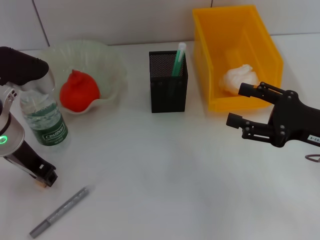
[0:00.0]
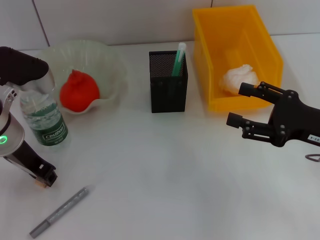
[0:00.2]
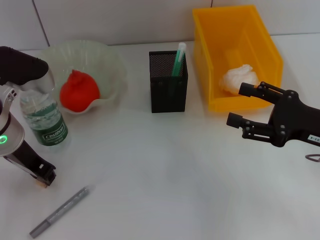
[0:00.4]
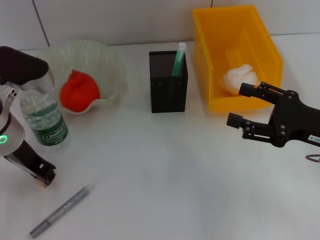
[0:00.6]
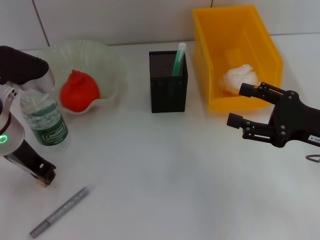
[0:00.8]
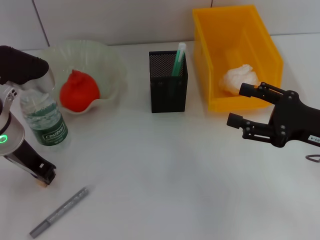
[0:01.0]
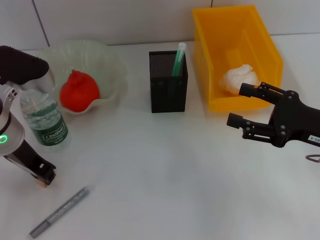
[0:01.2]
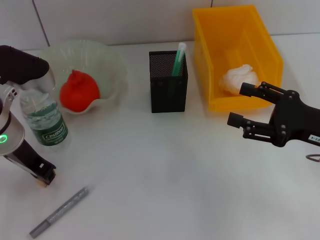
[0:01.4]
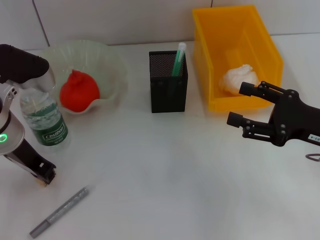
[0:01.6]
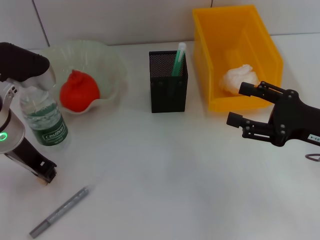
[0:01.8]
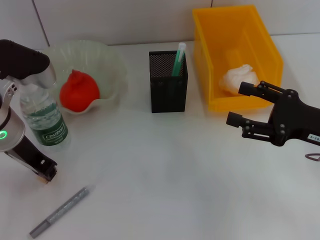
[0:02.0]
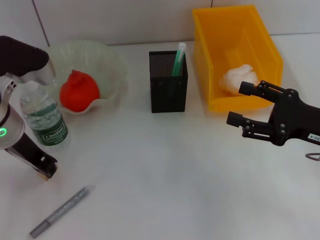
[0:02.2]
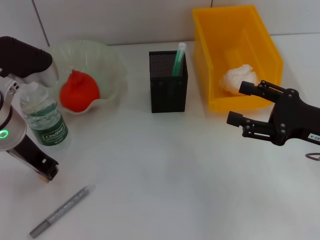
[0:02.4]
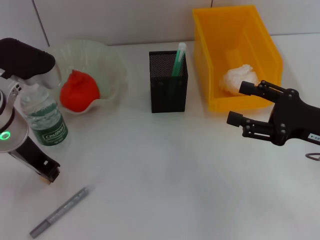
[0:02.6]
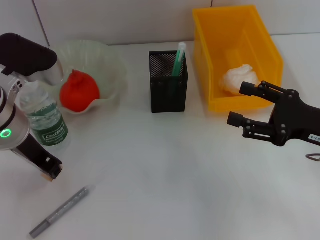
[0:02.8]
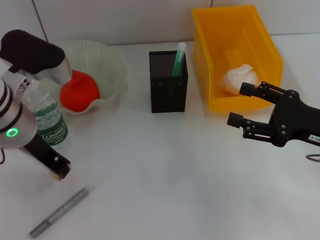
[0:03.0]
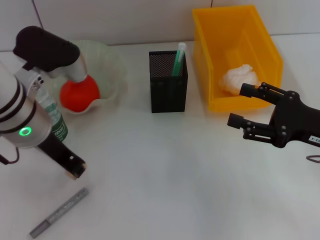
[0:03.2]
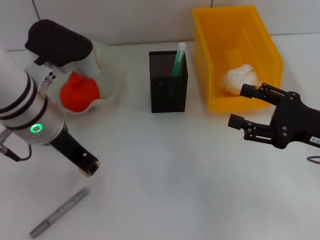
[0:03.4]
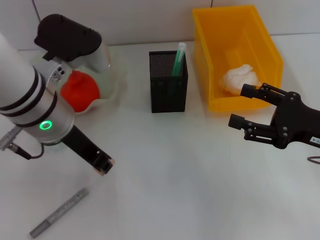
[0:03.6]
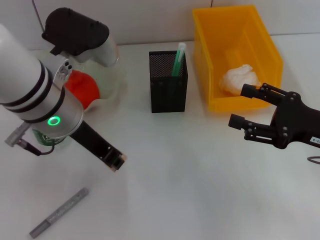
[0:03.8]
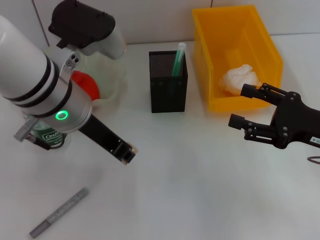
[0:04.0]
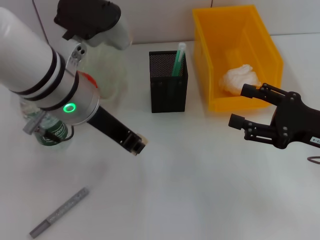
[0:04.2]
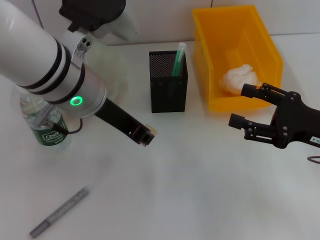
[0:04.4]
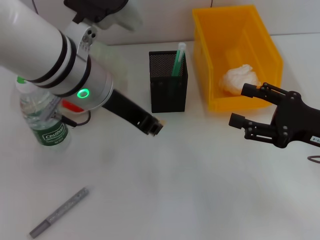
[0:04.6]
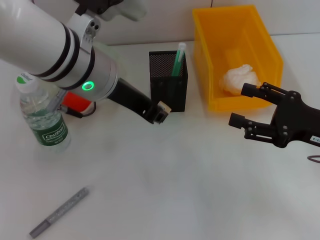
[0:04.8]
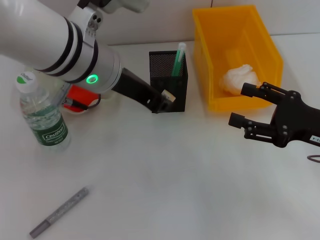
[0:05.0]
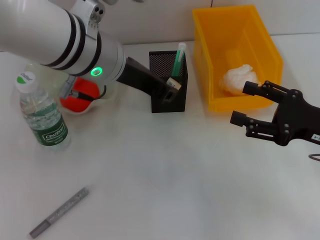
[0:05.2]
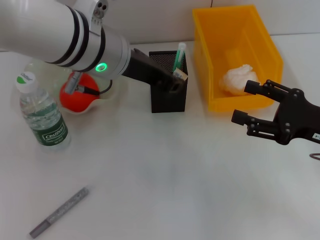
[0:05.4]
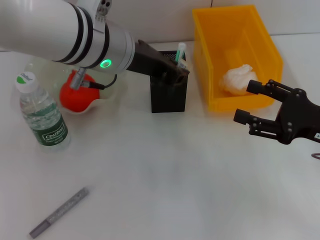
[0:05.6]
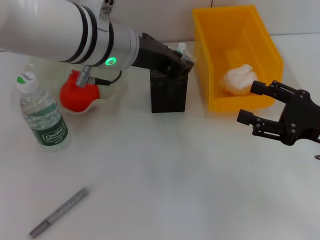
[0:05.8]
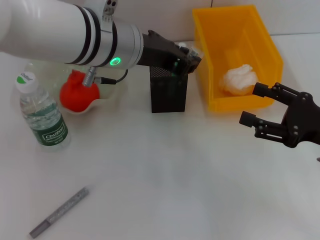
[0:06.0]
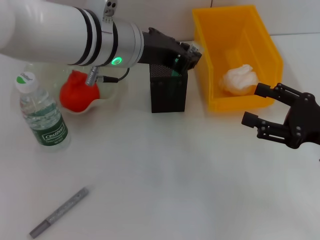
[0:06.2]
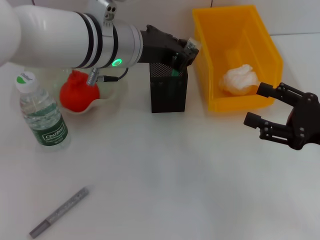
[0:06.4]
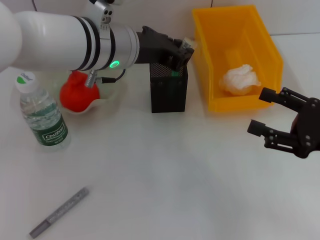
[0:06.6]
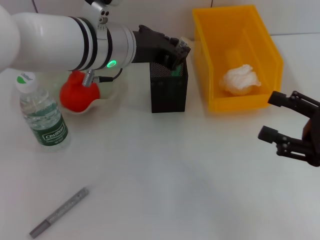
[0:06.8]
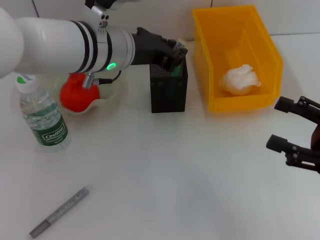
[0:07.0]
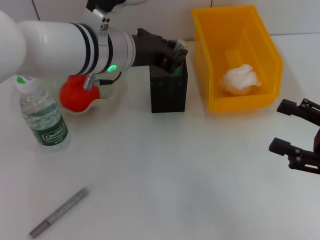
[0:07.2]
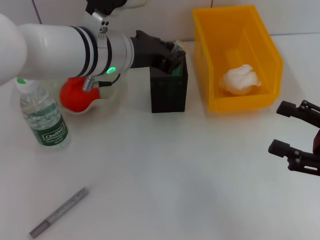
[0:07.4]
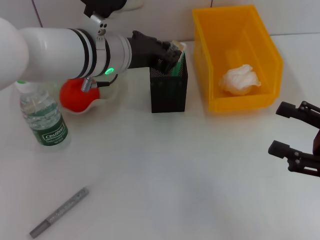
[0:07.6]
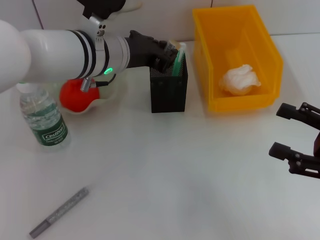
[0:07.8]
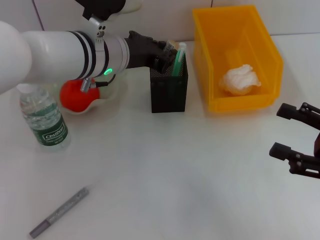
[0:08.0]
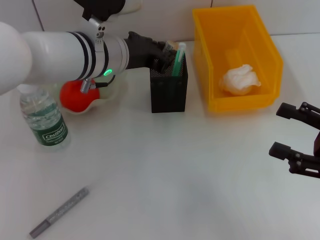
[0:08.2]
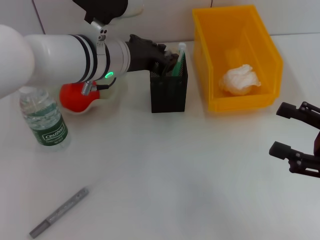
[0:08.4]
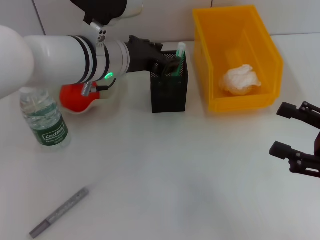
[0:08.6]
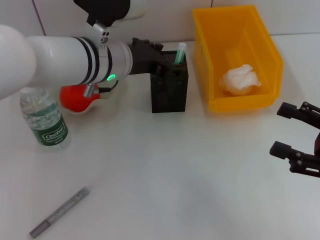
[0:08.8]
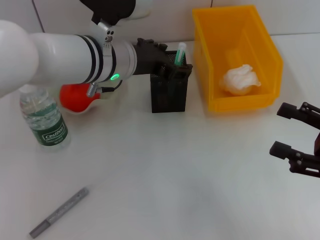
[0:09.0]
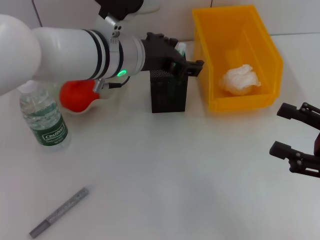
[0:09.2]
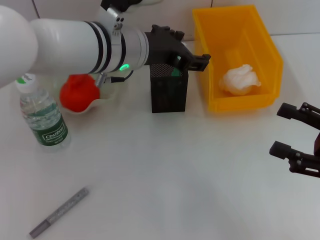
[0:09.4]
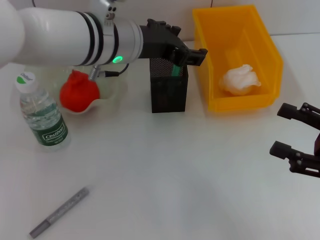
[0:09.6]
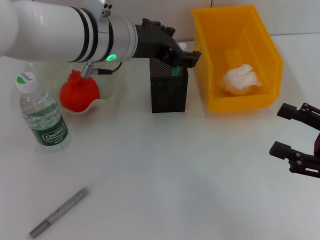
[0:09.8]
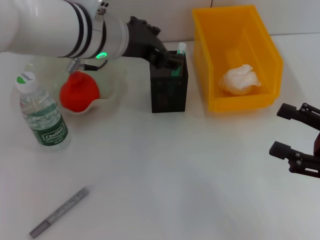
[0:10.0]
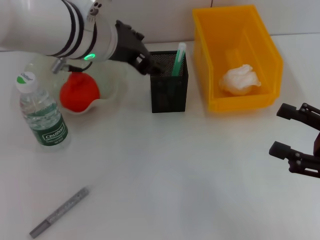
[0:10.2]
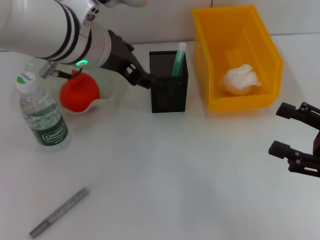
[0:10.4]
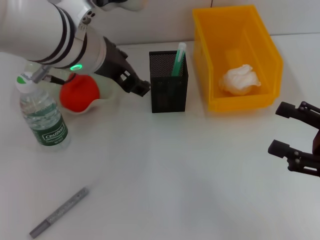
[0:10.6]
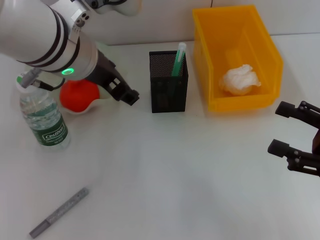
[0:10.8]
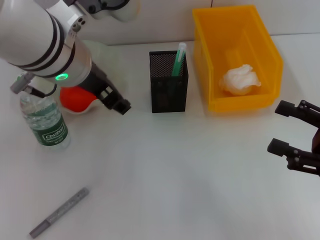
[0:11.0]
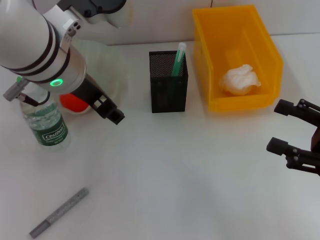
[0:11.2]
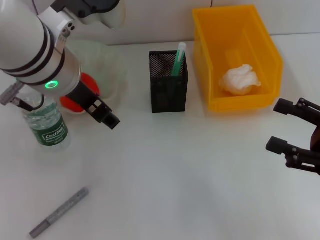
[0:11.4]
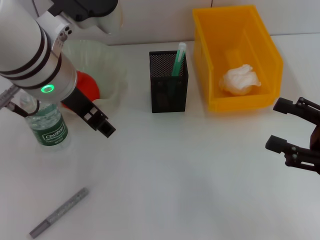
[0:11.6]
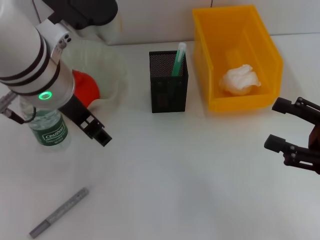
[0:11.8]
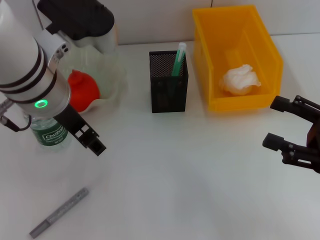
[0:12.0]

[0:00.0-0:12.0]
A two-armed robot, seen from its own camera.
Step, 0:01.2 to 0:08.4: Place the eraser into the pen holder with the left hand.
0:00.0 to 0:01.6: Both grippers stay put.
0:01.6 to 0:03.0: The grippers make only small movements.
0:03.0 to 0:04.4: The left gripper moves to the right, about 10 cm.
0:06.0 to 0:07.6: The right gripper shifts by roughly 5 cm, while the left gripper shifts by approximately 5 cm.
0:07.6 to 0:09.0: The left gripper opens its fingers.
0:09.0 to 0:10.4: The left gripper moves upward, about 5 cm.

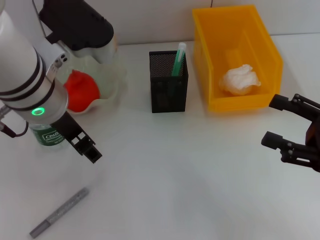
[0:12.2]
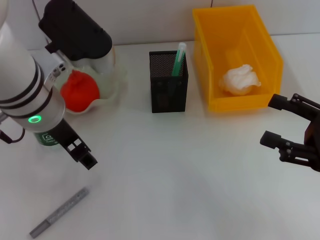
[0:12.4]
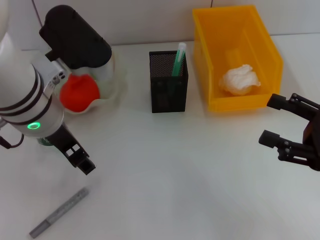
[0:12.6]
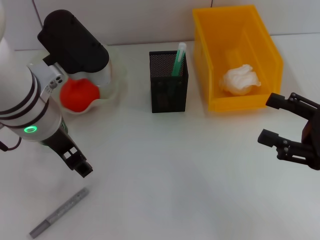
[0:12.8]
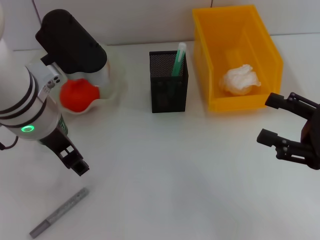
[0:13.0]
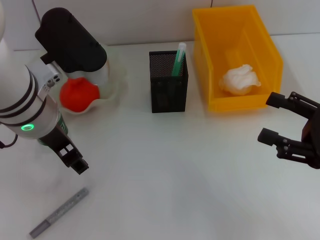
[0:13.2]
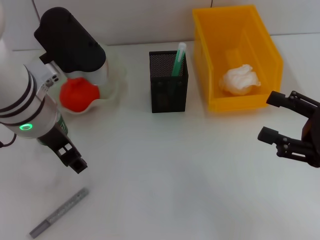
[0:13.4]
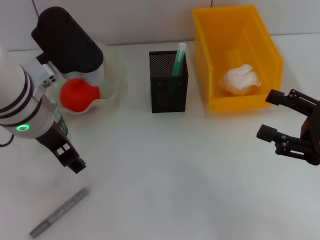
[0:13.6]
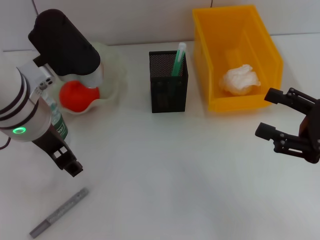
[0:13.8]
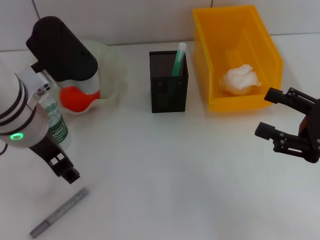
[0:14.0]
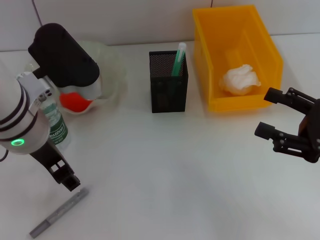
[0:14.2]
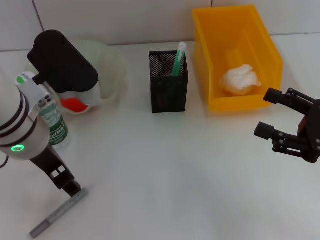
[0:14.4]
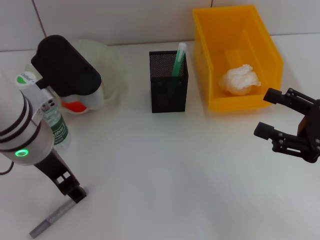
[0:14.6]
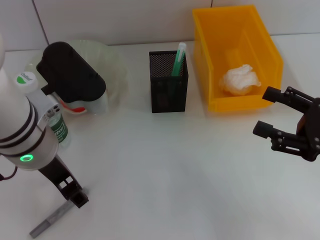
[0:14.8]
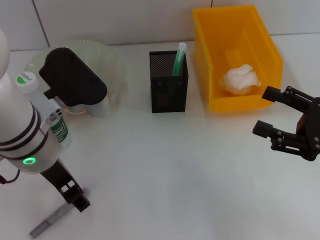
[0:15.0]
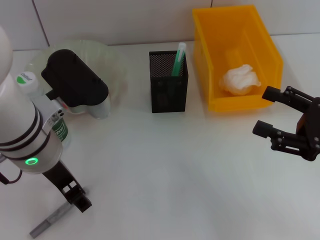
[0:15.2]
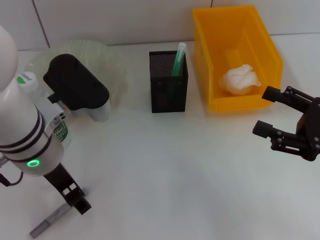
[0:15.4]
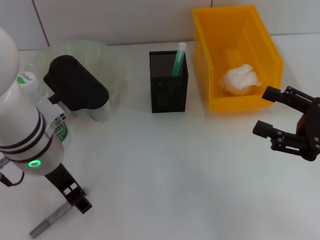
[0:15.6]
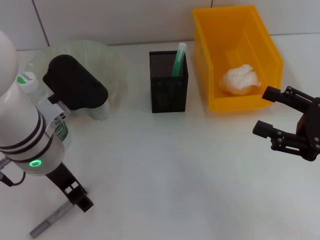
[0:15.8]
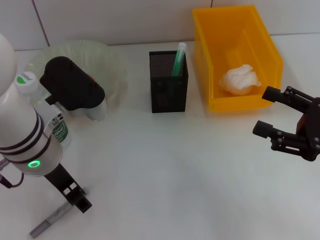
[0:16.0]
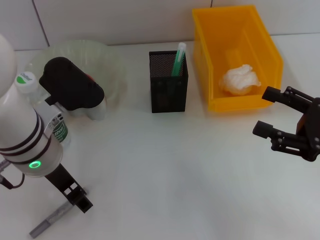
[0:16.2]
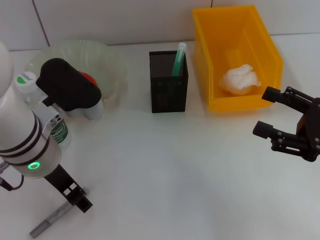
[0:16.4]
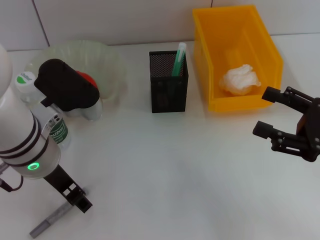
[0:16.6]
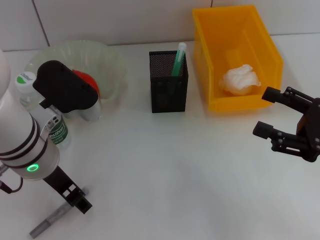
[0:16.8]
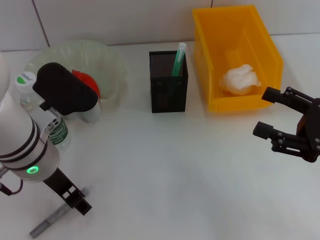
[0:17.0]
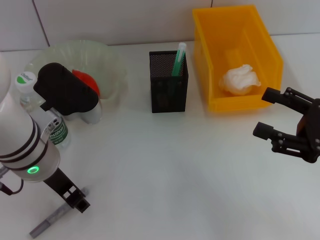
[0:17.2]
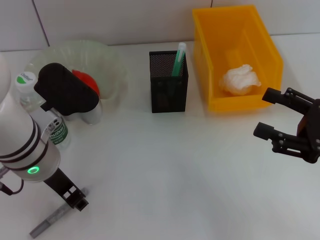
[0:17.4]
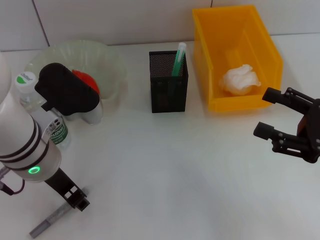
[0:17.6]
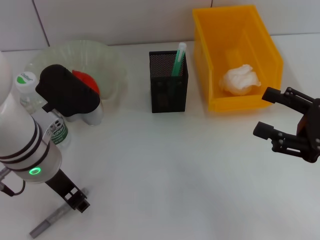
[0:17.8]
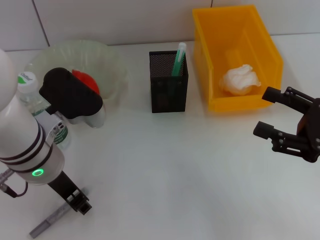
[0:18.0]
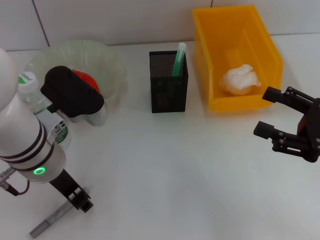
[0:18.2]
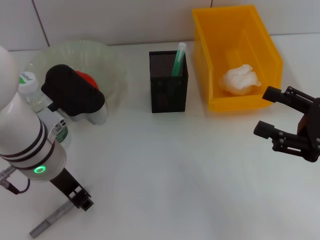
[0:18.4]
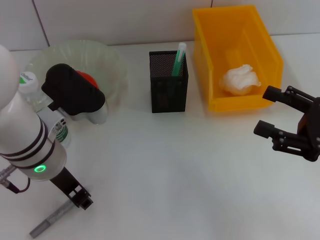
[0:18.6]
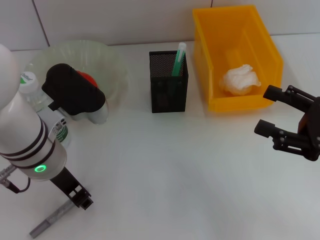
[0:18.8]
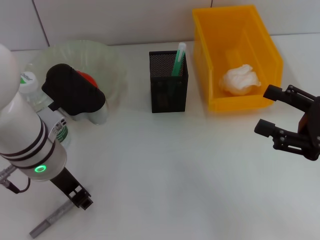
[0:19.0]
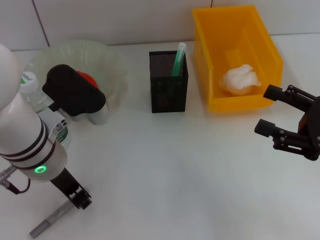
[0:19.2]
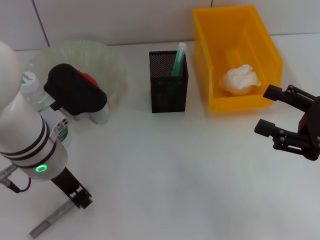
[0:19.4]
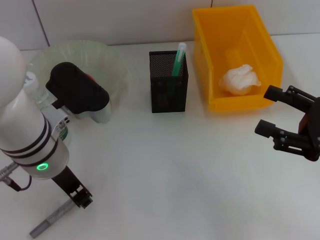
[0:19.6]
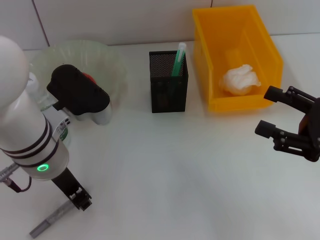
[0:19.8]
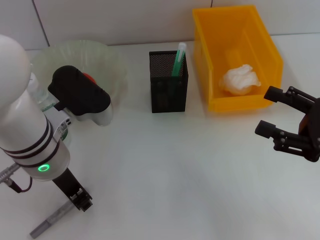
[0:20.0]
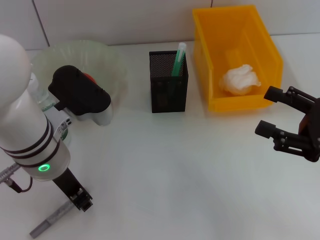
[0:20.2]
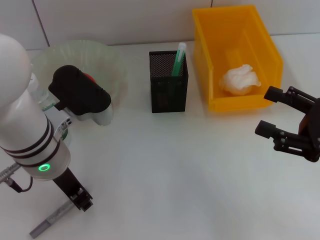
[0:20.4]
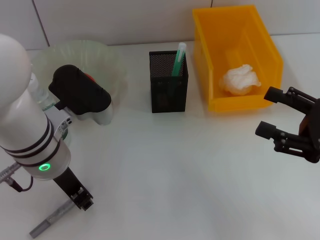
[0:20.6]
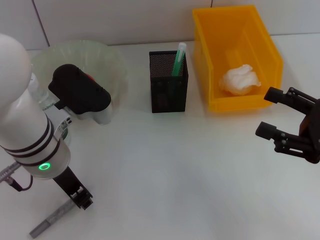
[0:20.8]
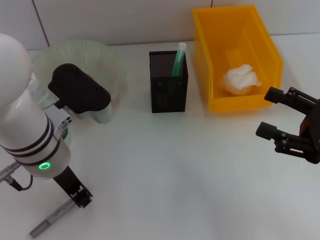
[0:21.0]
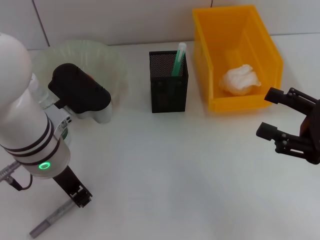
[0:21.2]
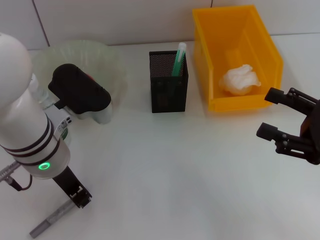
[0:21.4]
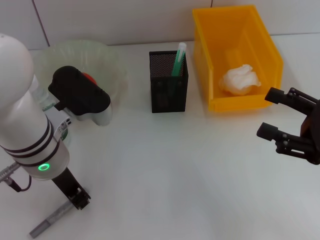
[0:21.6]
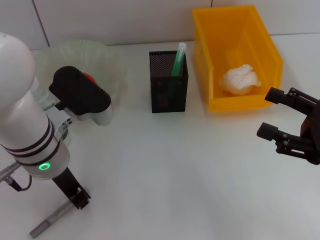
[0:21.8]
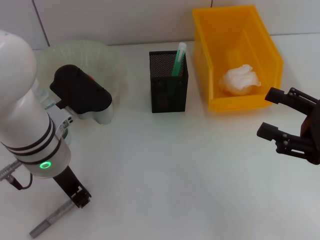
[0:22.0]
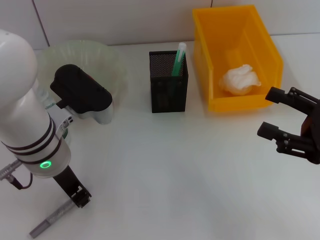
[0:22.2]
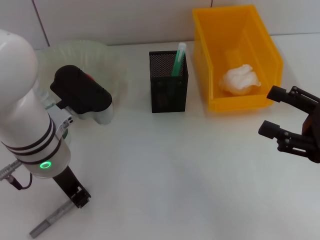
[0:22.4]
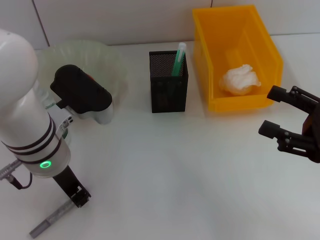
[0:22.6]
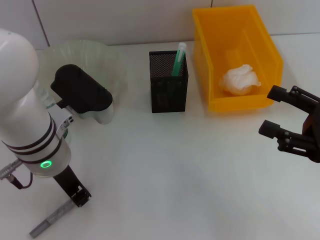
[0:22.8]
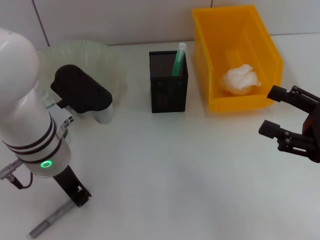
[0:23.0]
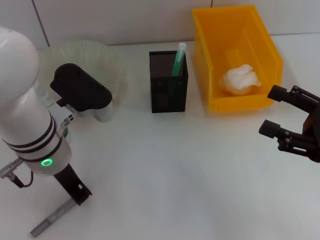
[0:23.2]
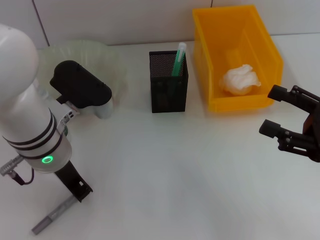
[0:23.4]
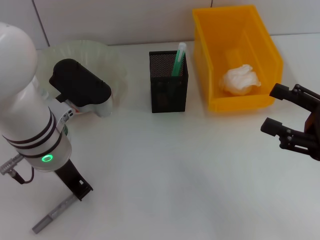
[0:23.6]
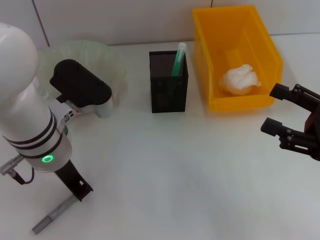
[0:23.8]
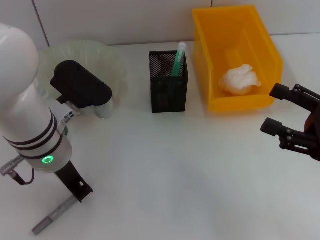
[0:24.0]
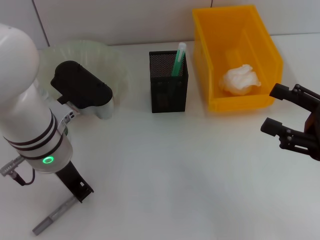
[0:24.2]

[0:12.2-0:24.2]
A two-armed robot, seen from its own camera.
0:12.2 to 0:15.2: There are only small adjustments of the grippers.
0:15.2 to 0:16.6: The grippers move only a little.
0:16.6 to 0:18.2: The left gripper closes.
0:18.2 to 0:22.6: Both grippers stay about where they are.
0:22.6 to 0:24.2: Both grippers stay about where they are.
